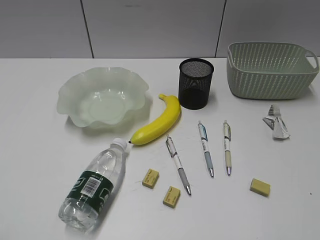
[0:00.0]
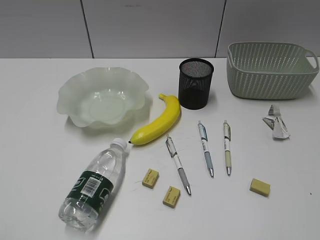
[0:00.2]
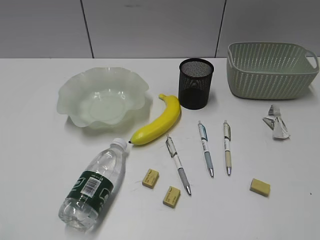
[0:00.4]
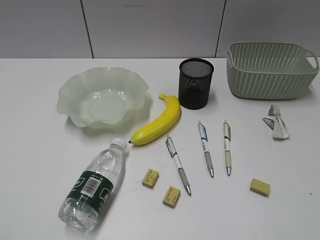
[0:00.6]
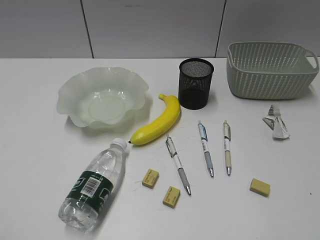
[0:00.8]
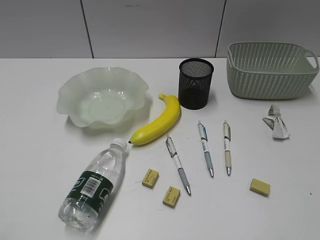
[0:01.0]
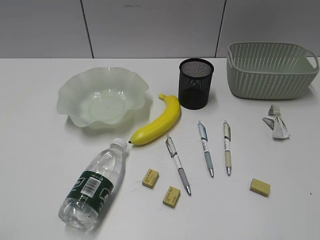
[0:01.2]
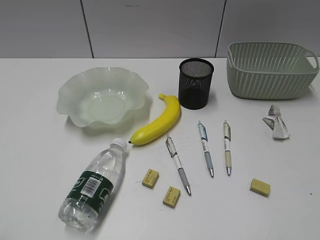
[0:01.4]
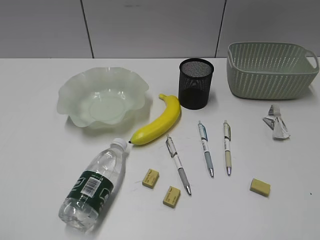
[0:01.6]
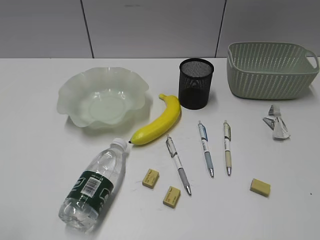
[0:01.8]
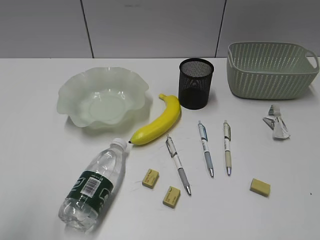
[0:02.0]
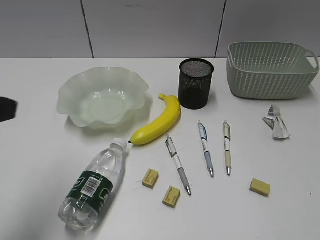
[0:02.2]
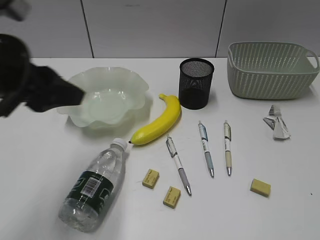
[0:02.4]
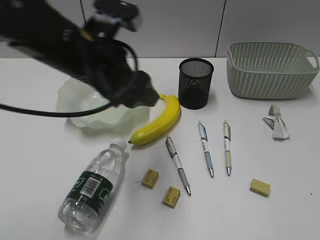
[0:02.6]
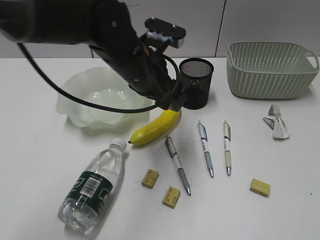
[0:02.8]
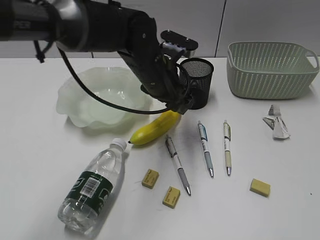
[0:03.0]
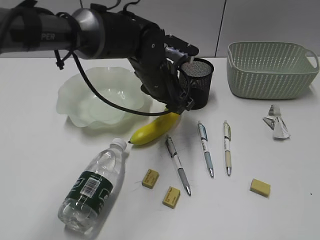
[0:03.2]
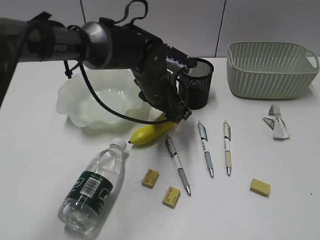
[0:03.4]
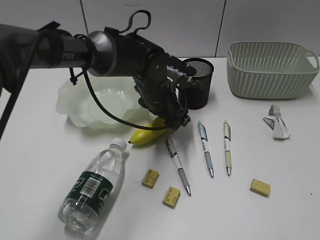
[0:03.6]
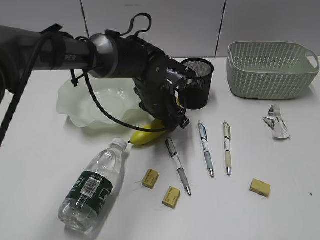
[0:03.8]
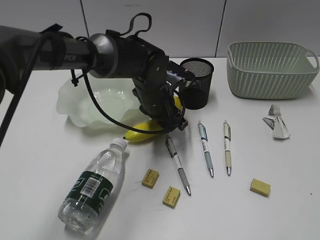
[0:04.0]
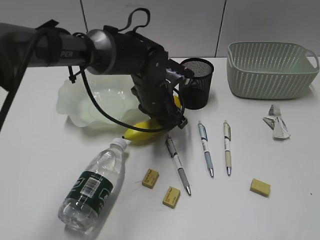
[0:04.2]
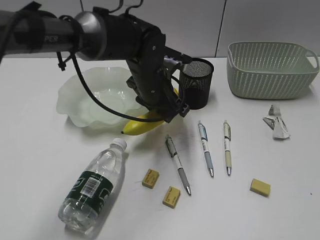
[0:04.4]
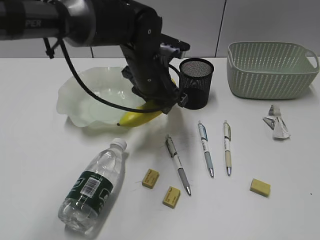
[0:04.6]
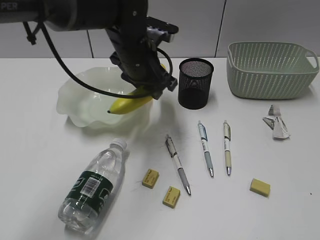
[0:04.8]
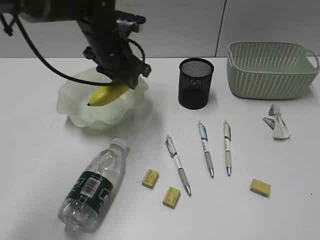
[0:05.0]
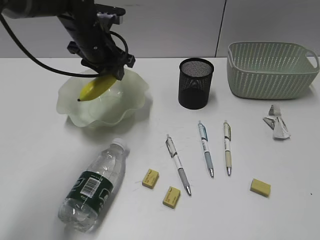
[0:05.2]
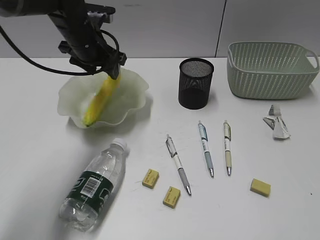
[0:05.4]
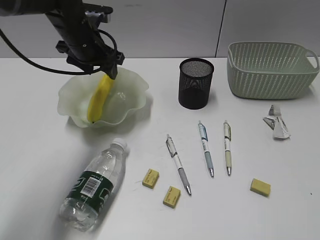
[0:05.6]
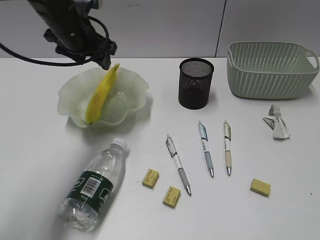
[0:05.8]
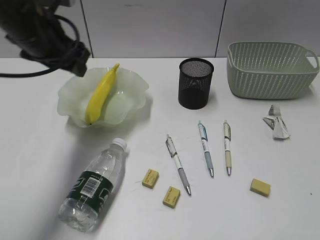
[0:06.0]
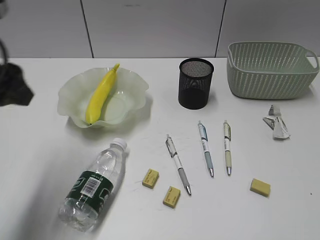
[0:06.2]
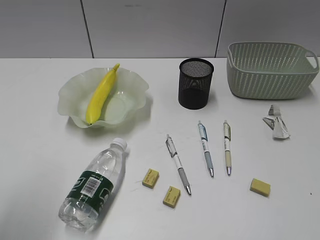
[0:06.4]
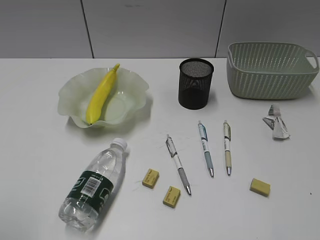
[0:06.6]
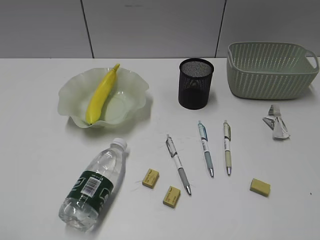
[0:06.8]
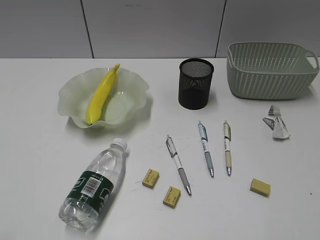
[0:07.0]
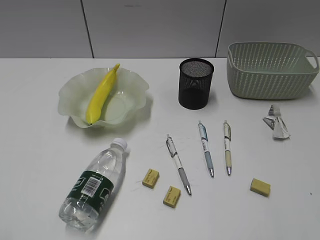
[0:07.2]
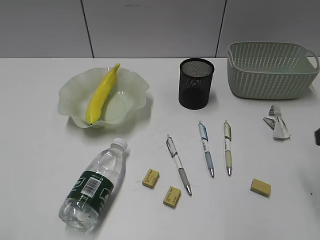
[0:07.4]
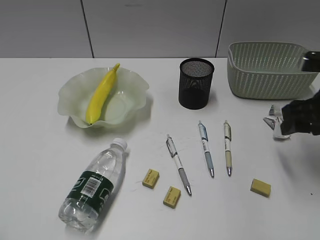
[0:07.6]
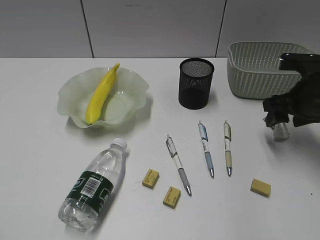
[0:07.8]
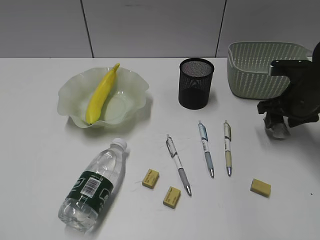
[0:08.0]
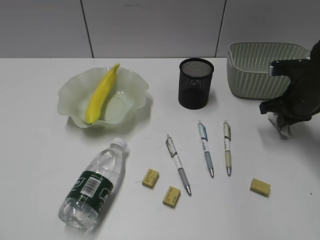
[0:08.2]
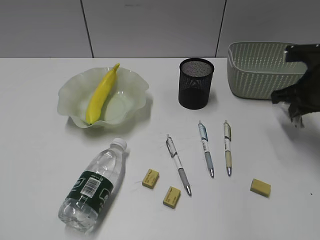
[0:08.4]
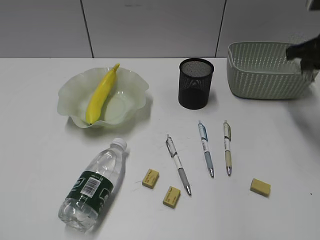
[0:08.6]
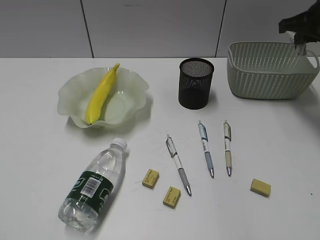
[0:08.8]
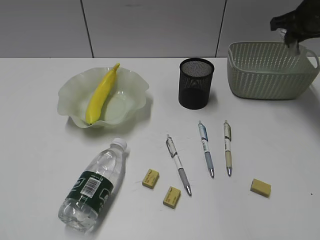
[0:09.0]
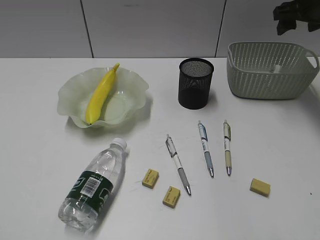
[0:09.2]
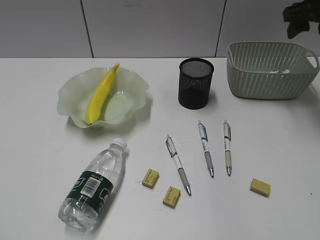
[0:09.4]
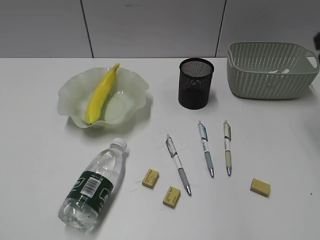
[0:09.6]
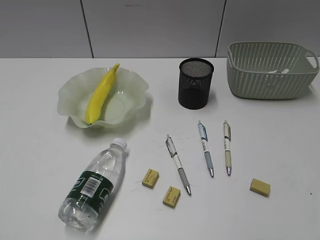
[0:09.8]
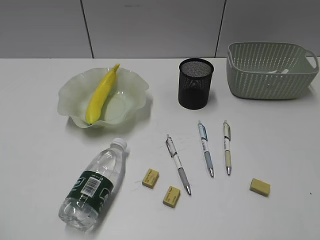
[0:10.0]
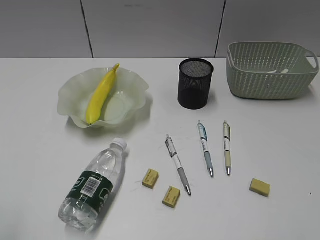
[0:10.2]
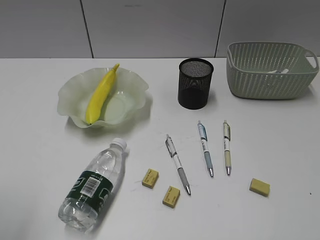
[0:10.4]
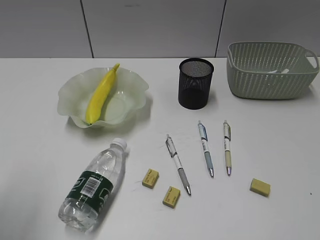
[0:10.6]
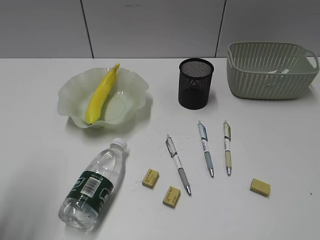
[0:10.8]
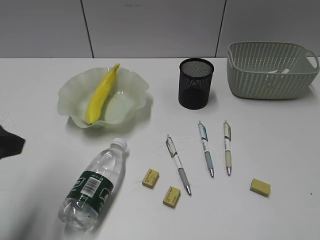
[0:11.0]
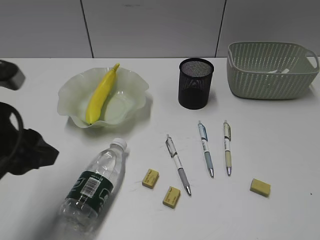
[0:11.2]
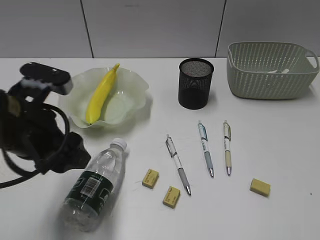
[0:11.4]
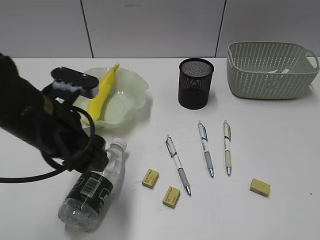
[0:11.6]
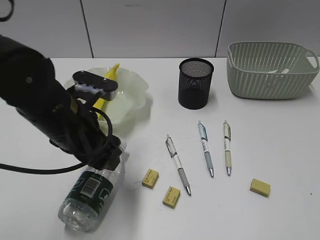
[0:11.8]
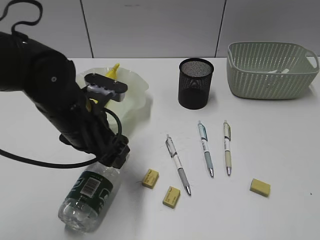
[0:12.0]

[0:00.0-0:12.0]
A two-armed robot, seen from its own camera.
Step, 0:01.6 to 0:04.0: Grasp the banana with left gripper.
Step, 0:04.2 to 0:05.4: Place the banana in the plate with left gripper.
Step, 0:05.6 to 0:08.2: Grasp the waste paper with right gripper.
Step, 0:08.4 to 0:09.2: Place the waste paper in the basket with right gripper.
0:01.6 to 0:03.0: The left gripper travels forward and to the right by about 50 cm, and opens up.
0:04.4 to 0:06.0: The left gripper is displaced to the left and upward by approximately 20 cm, and opens its fingers.
0:06.0 to 0:07.6: The right gripper goes approximately 30 cm forward, and opens; the left gripper is displaced backward and to the left by some 35 cm.
0:07.6 to 0:09.0: The right gripper goes some 15 cm forward, and closes.
0:09.0 to 0:10.4: The right gripper moves backward, some 50 cm, and opens; the left gripper moves forward, roughly 10 cm.
0:10.4 to 0:12.0: The right gripper closes its fingers. The left gripper travels to the right, forward and downward by about 30 cm.

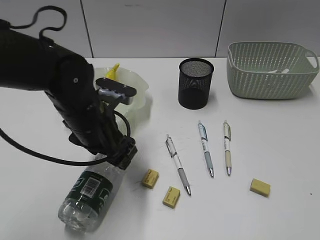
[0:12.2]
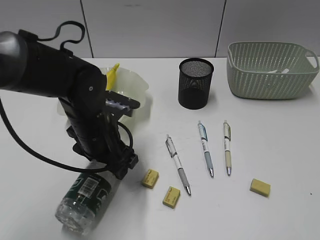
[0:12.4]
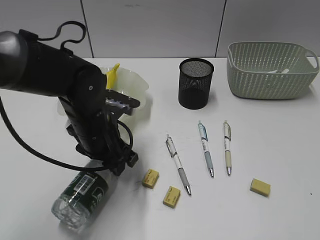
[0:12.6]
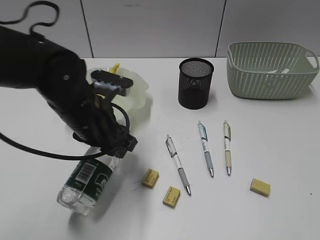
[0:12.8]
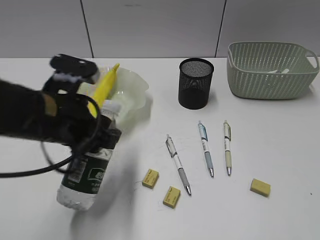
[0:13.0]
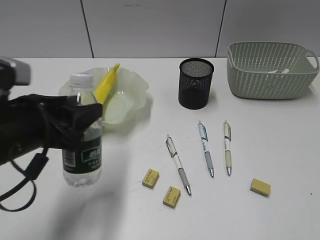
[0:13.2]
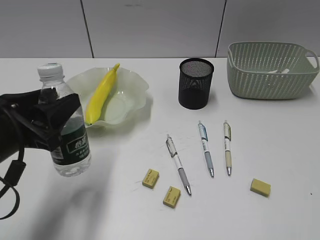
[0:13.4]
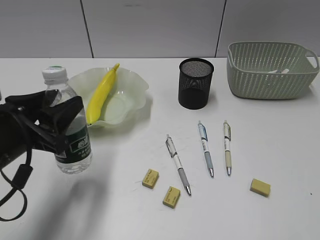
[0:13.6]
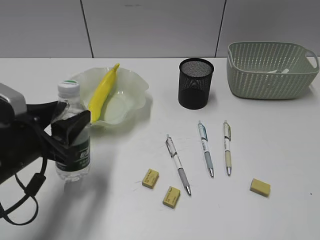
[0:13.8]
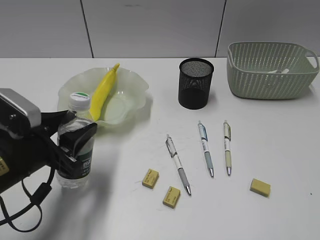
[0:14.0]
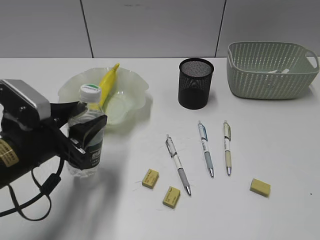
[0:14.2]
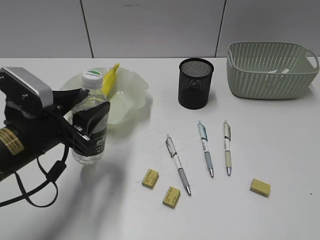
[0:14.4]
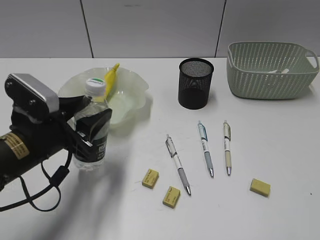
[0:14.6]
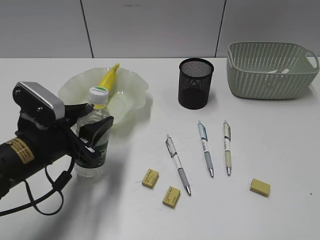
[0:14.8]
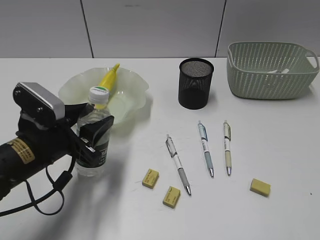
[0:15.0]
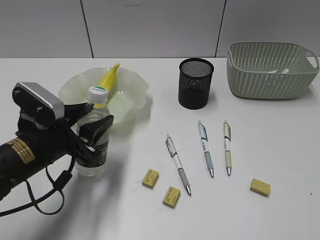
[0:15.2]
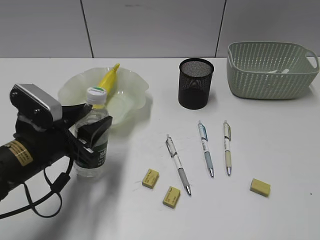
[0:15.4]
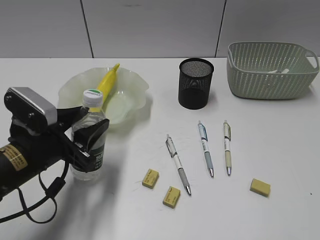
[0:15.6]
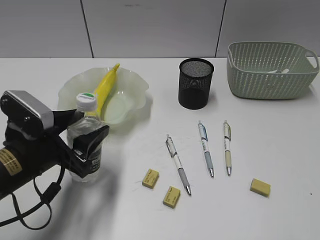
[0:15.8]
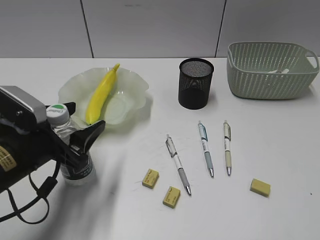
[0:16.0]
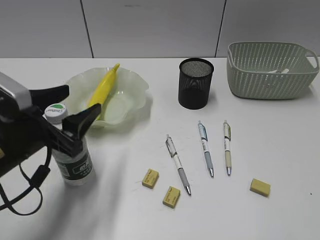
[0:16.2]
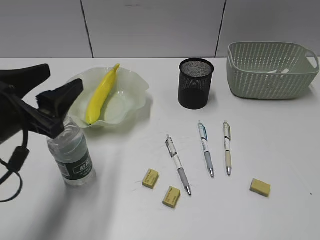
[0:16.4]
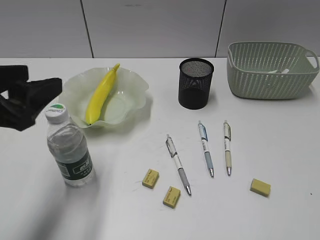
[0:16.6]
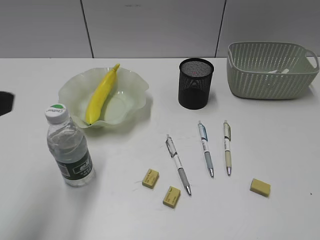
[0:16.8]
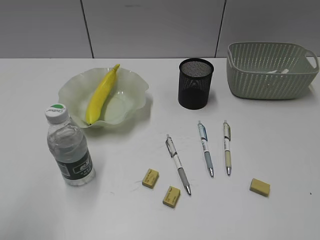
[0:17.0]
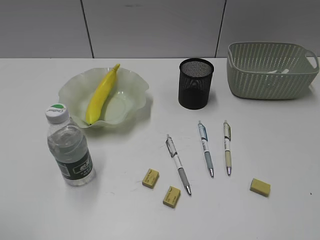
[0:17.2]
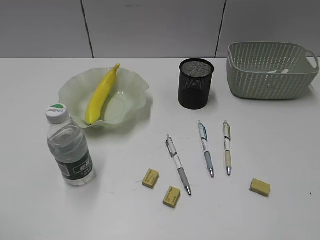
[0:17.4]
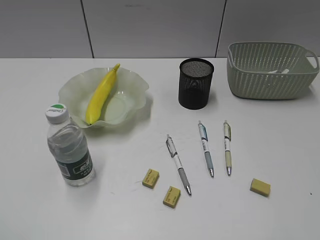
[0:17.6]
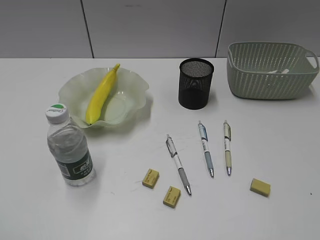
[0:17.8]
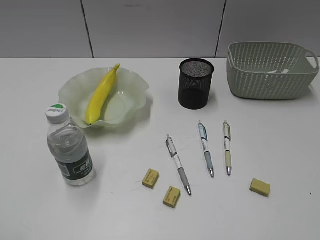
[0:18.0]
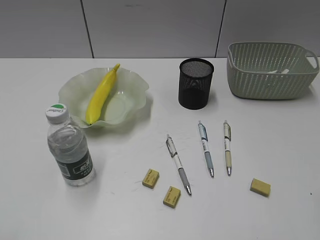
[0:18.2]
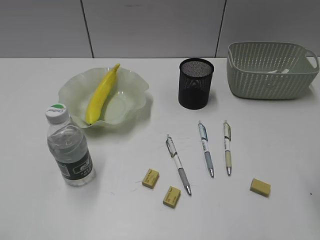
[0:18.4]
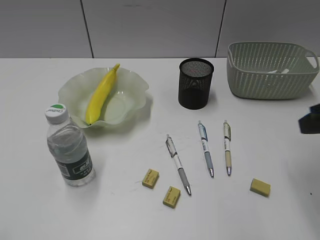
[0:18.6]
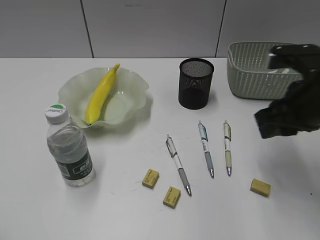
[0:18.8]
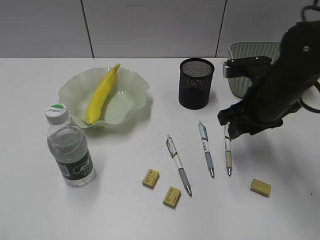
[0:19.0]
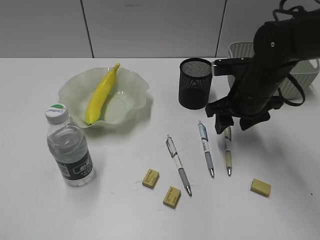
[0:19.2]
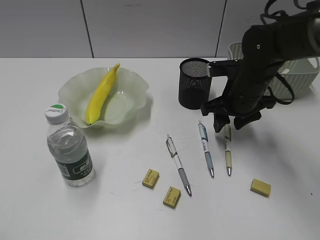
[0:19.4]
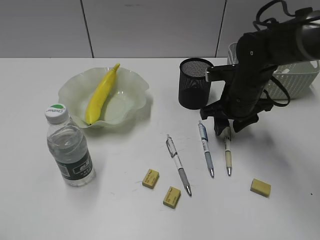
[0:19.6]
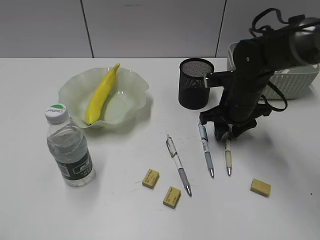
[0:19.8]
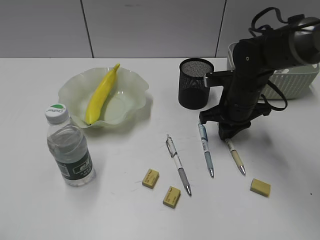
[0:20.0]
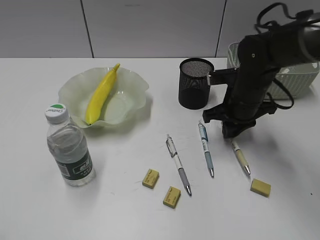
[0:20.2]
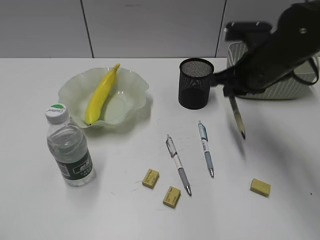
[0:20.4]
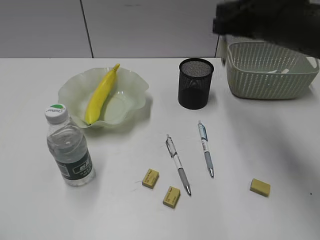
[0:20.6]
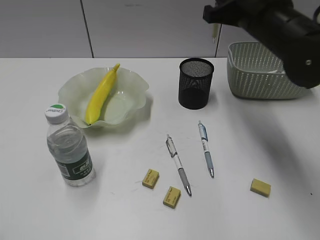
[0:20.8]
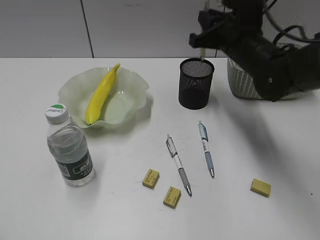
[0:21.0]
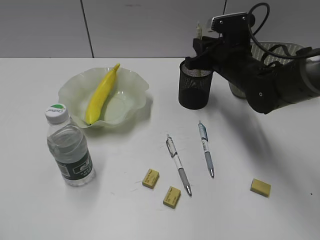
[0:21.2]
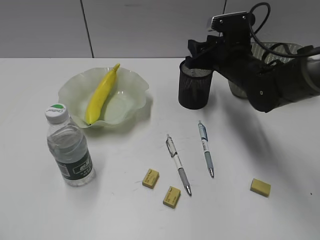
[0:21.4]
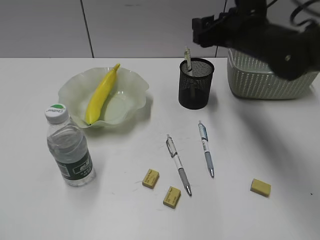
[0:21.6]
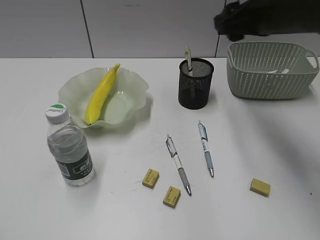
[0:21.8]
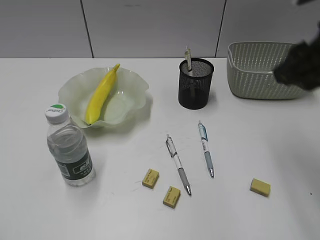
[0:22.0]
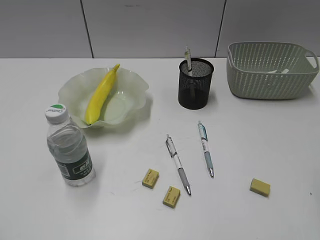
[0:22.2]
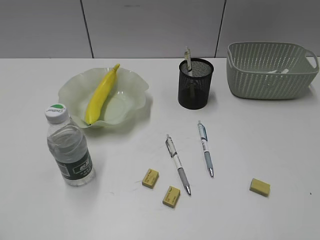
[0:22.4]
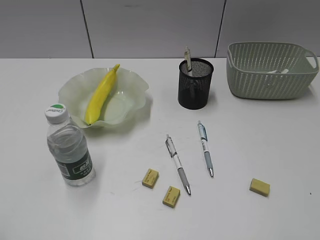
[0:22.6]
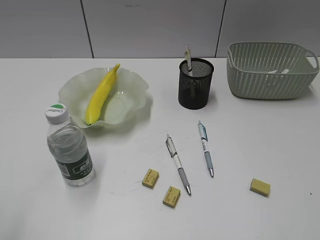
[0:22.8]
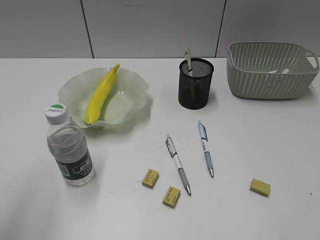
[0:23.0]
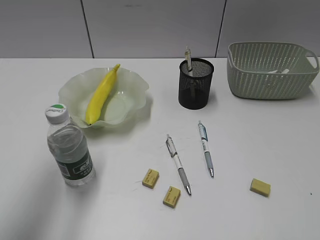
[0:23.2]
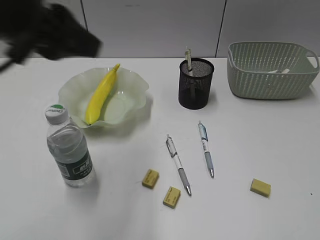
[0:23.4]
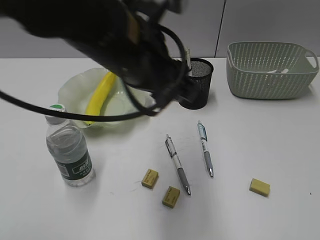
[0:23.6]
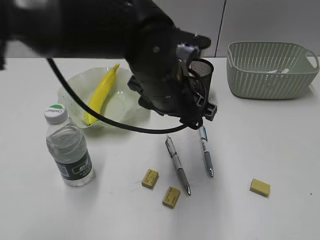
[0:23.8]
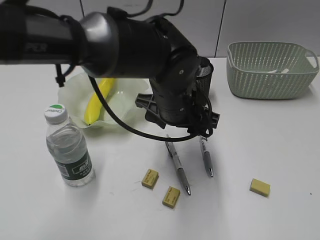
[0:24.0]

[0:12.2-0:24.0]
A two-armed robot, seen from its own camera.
Step, 0:12.6 to 0:16.2: Stand the bottle with left gripper.
Step, 0:16.4 to 0:20.0: Grasp the yellow pen with right gripper.
Step, 0:20.2 to 0:21.4: Place the yellow pen in pen holder with right gripper.
0:12.2 to 0:13.6: The left gripper shifts roughly 15 cm to the left and backward, and closes.
0:13.6 to 0:15.2: The left gripper ends up roughly 5 cm from where it was.
0:15.2 to 0:16.6: The left gripper moves upward and backward, approximately 15 cm.
0:16.6 to 0:18.2: The left gripper shifts roughly 20 cm backward and to the left.
0:18.2 to 0:19.6: The right gripper travels forward, downward and to the left by roughly 35 cm, and opens up.
0:19.6 to 0:21.0: The right gripper moves upward, approximately 5 cm, and closes its fingers.
0:21.0 to 0:22.6: The right gripper shifts about 40 cm backward and to the right, and opens its fingers.
0:22.6 to 0:24.0: The left gripper shifts some 50 cm to the right and forward, and opens its fingers.
